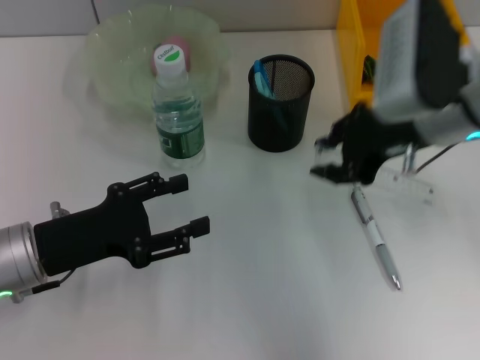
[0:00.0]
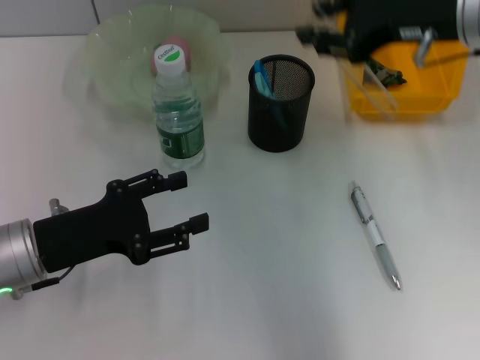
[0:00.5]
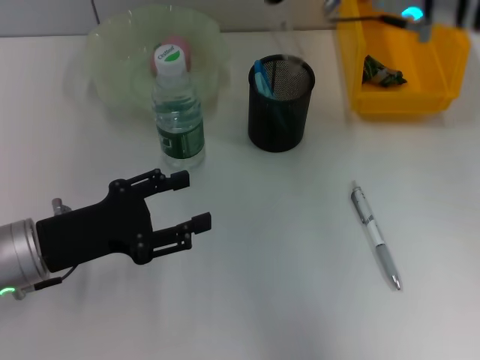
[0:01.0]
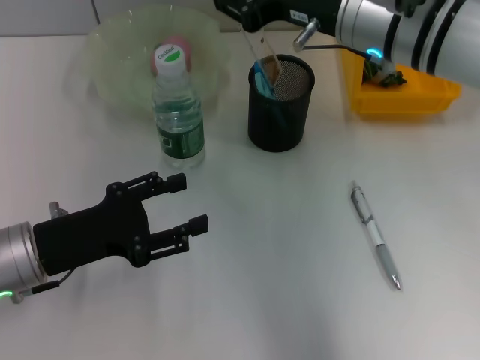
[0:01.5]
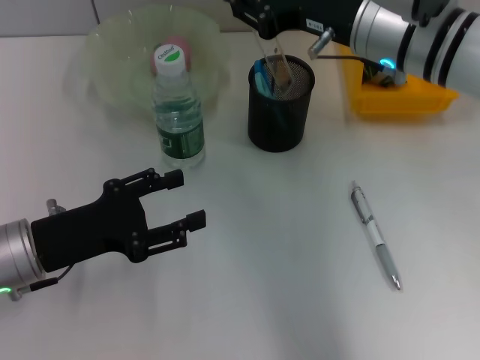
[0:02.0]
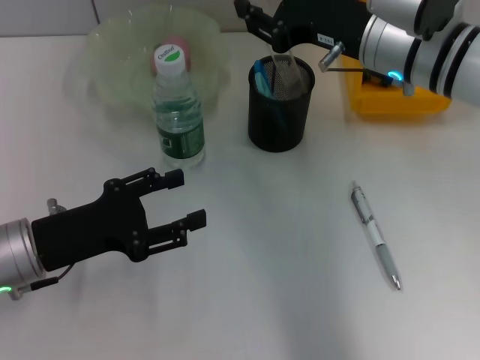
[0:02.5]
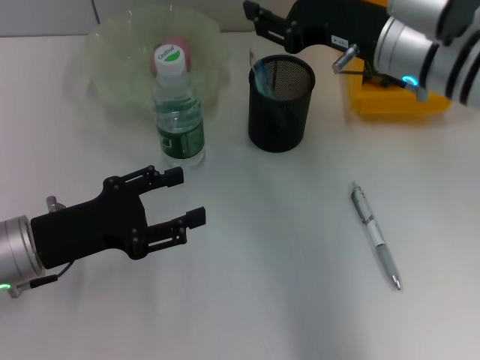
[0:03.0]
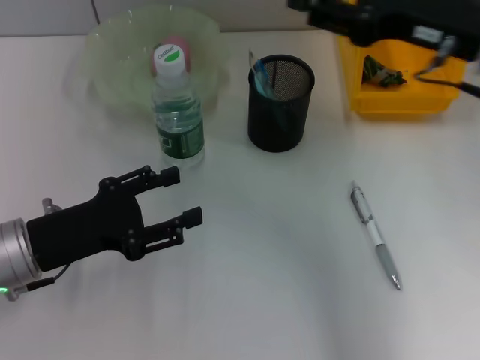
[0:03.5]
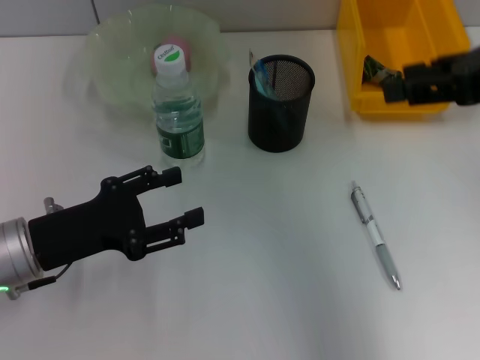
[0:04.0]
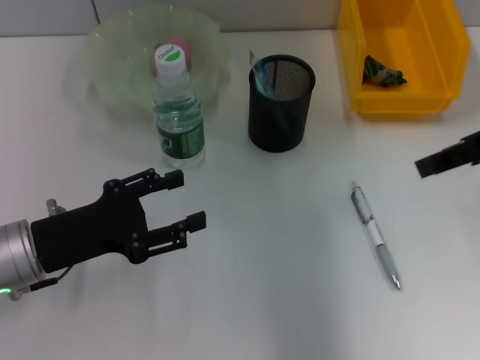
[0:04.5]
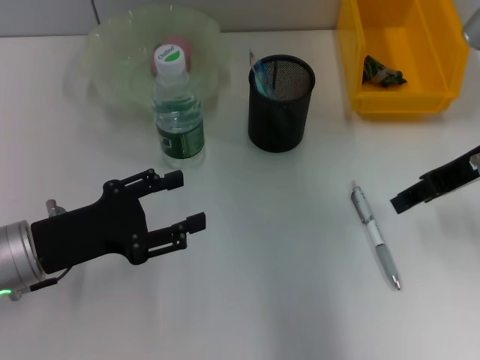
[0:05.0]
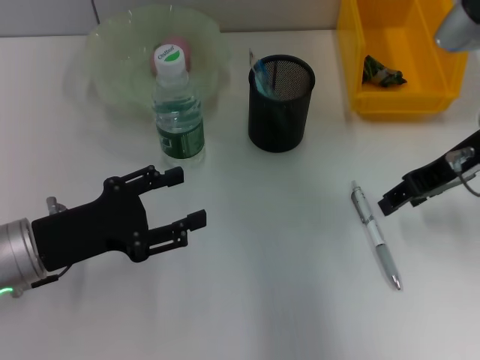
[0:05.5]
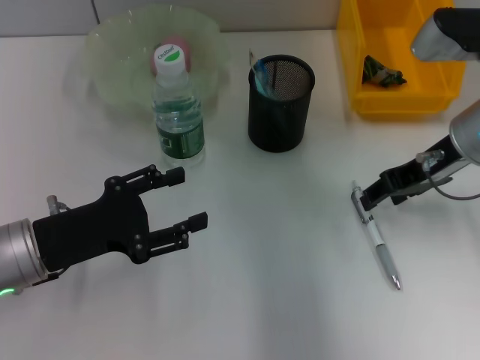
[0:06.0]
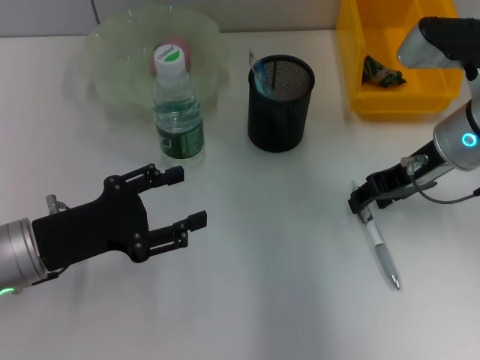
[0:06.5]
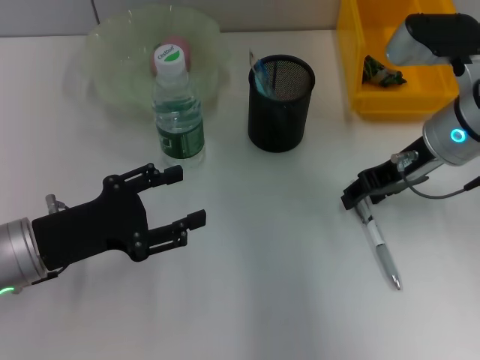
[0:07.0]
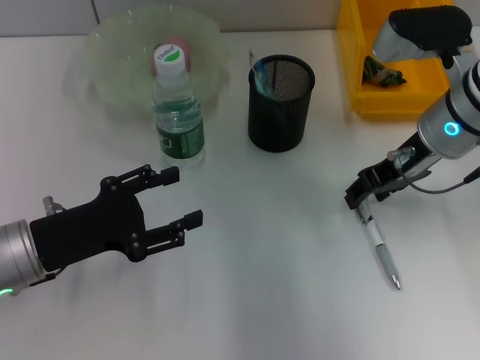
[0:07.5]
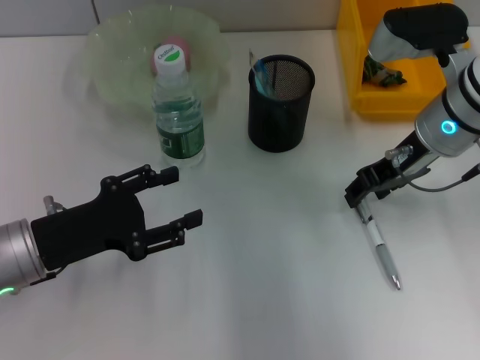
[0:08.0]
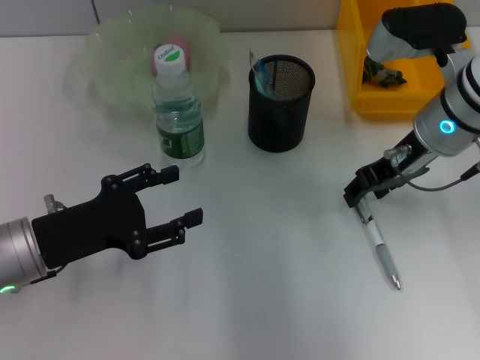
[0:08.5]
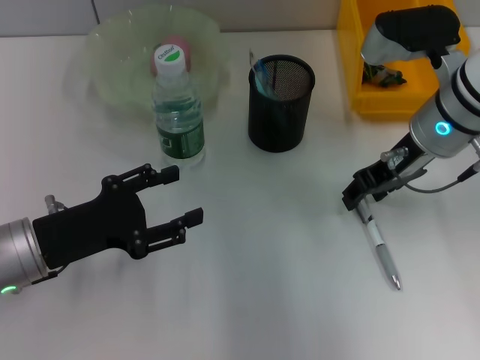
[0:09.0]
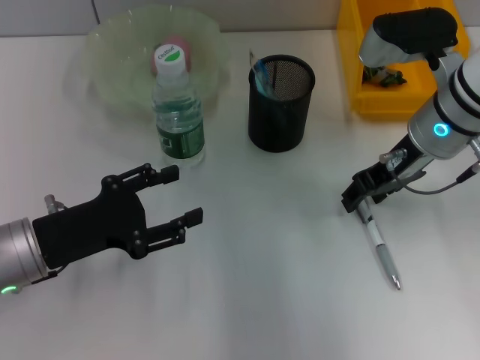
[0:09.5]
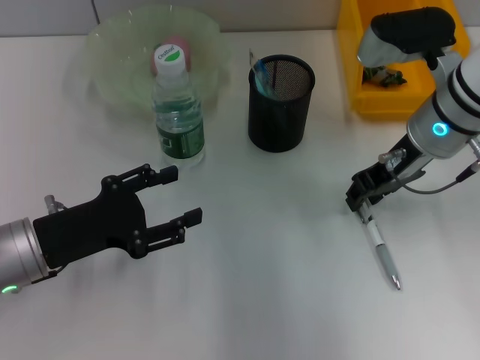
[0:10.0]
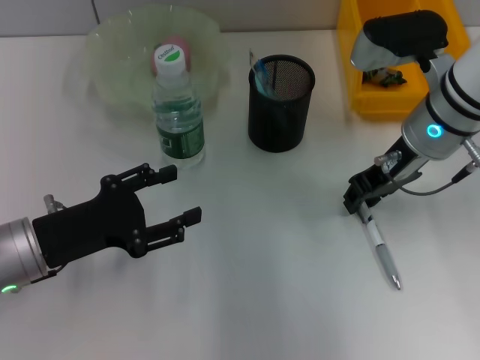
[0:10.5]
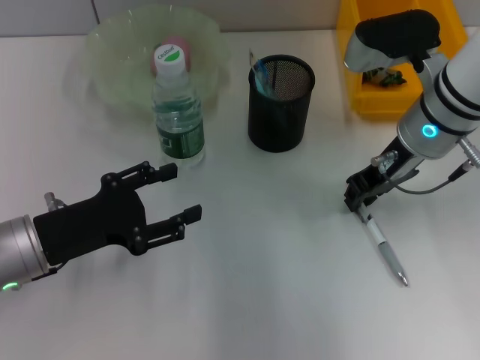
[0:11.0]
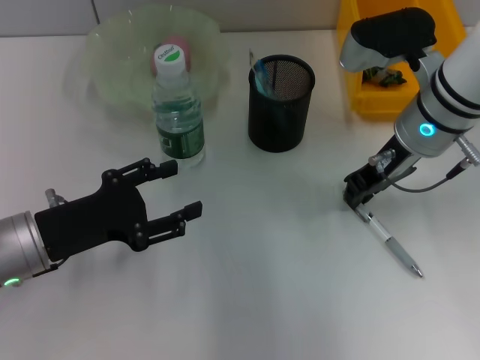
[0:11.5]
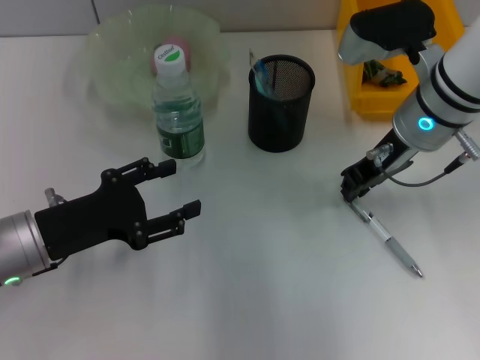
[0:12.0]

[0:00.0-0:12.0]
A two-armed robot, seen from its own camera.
Step, 0:00.0 to 0:02.5: Place the ruler into the pen holder with the right hand.
0:00.0 to 0:02.0: The right gripper moves about 5 cm.
0:02.0 to 0:04.0: The right gripper travels to the right, upward and backward by roughly 15 cm.
0:04.0 to 0:06.0: The right gripper travels downward, forward and to the left by approximately 15 cm.
0:06.0 to 0:08.0: The grippers move only a little.
0:08.0 to 0:10.0: Both grippers stay put.
0:10.0 to 0:12.0: The grippers make only small movements.

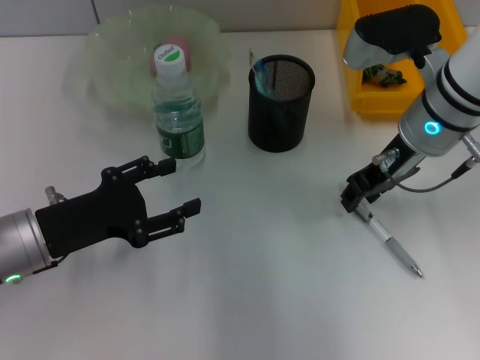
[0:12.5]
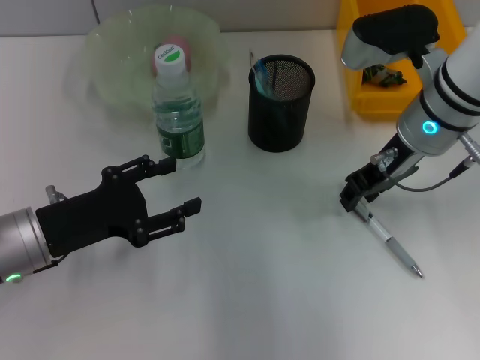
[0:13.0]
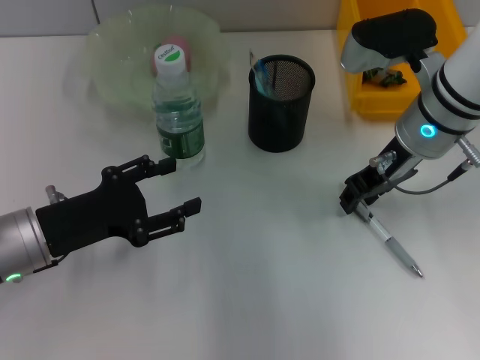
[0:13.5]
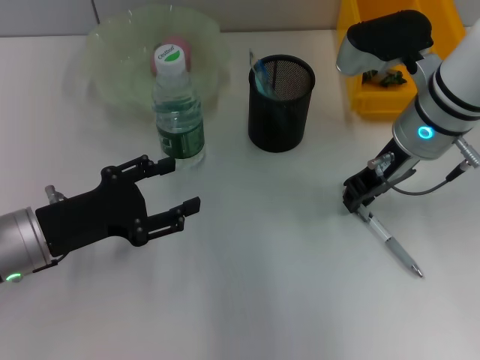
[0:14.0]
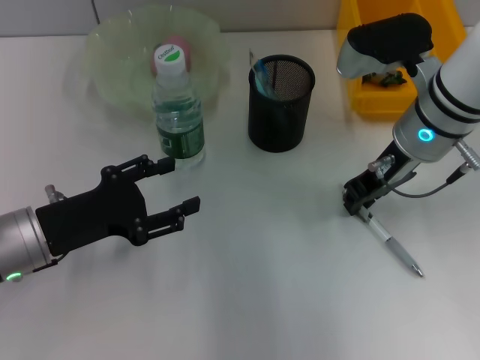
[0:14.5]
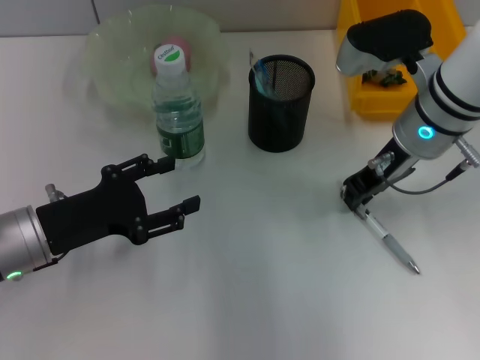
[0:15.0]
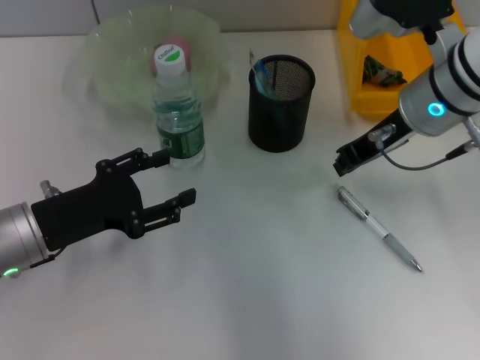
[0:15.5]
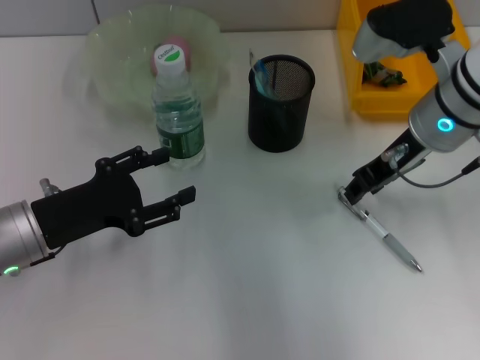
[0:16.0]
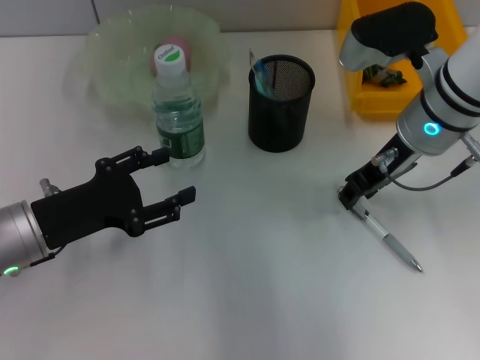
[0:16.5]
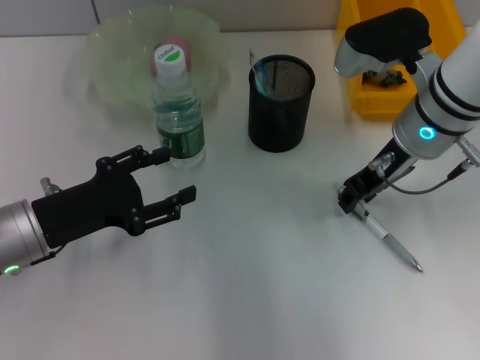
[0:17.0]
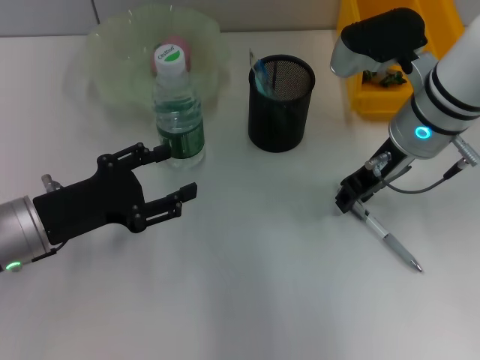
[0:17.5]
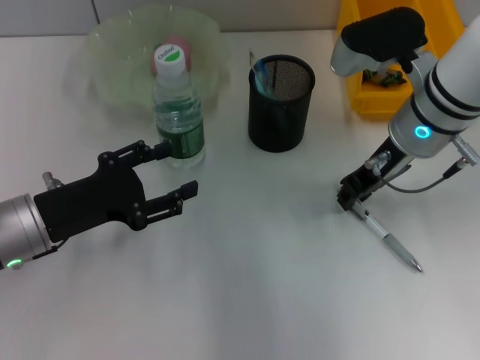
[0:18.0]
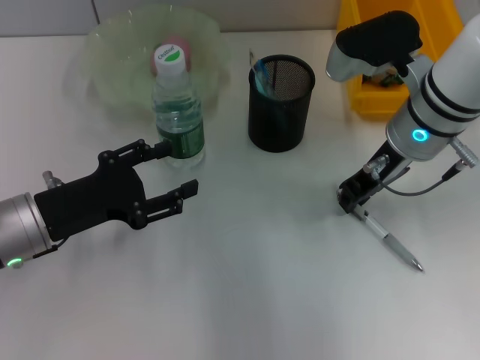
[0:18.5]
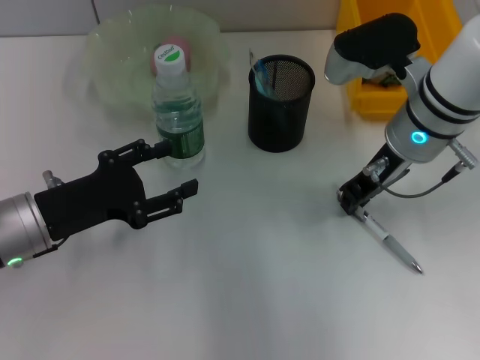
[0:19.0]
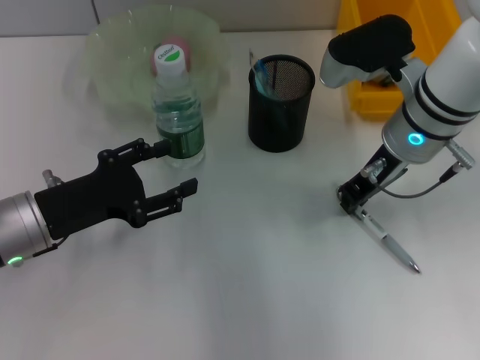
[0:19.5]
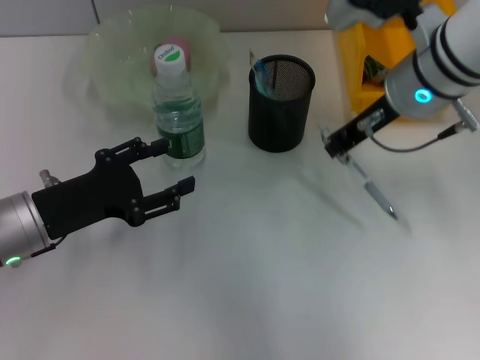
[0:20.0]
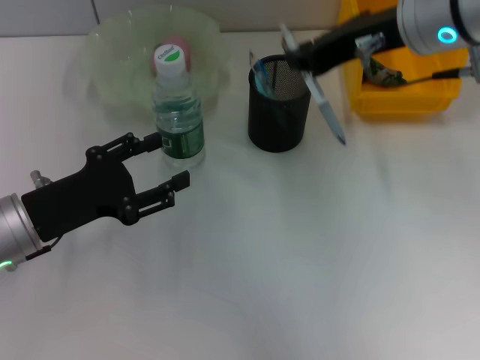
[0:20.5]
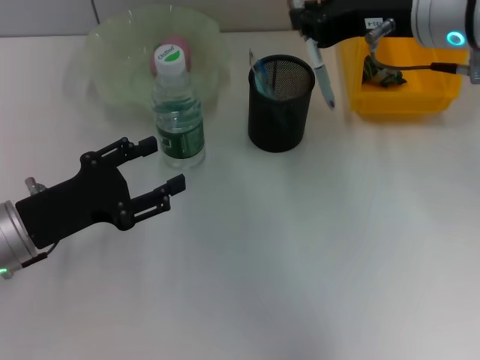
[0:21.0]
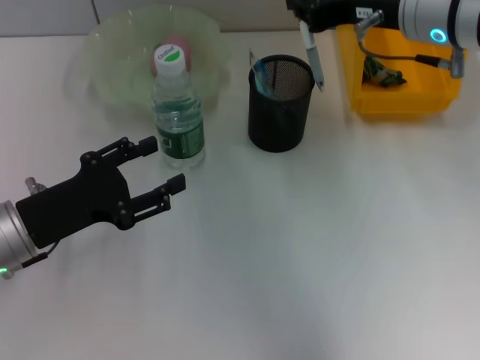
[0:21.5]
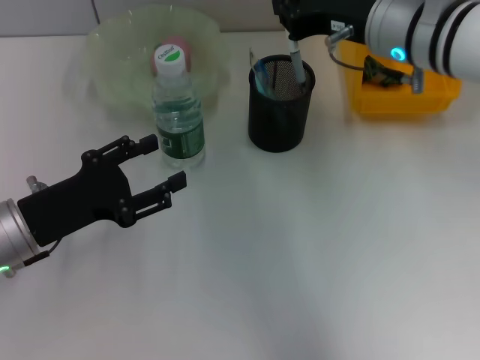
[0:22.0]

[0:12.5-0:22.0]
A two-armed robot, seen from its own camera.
Step, 0:12.5 to 0:19.0: Grab the gray spring-action pen with the right hand.
0:12.5 to 0:14.5: Both grippers stay put.
0:14.5 to 0:16.5: The grippers move only a little.
0:16.5 to 0:18.0: Neither gripper changes place.
0:18.0 to 0:20.0: The grippers make only small movements.

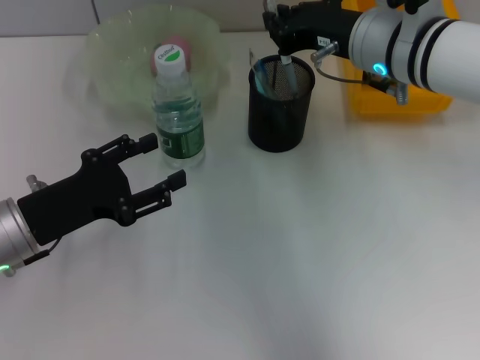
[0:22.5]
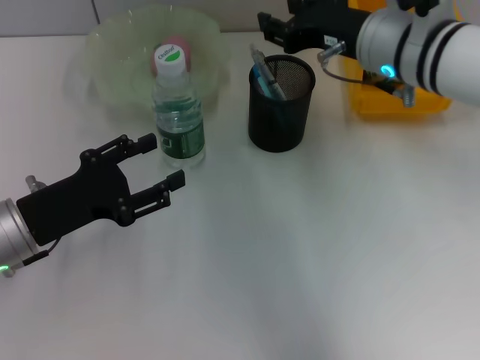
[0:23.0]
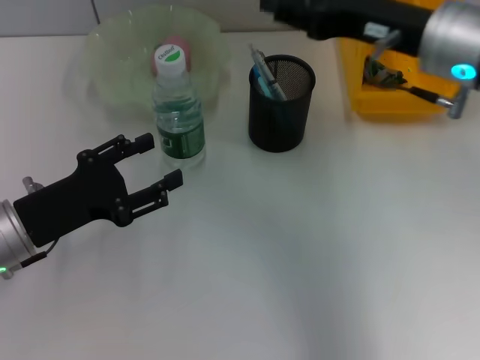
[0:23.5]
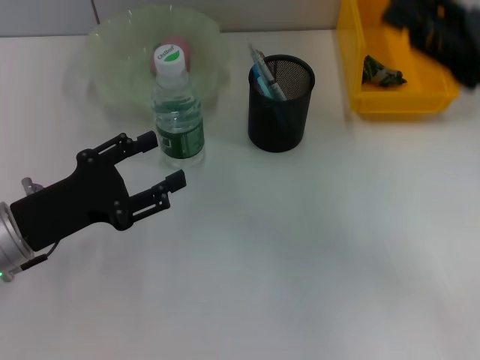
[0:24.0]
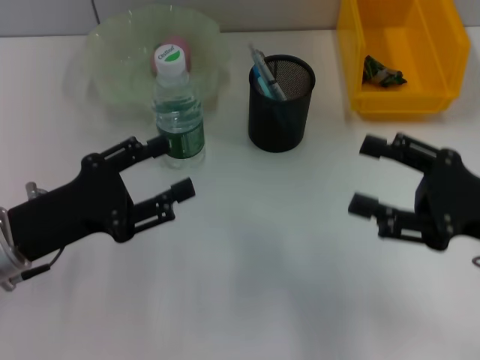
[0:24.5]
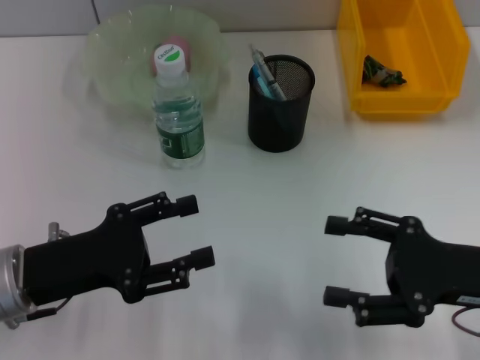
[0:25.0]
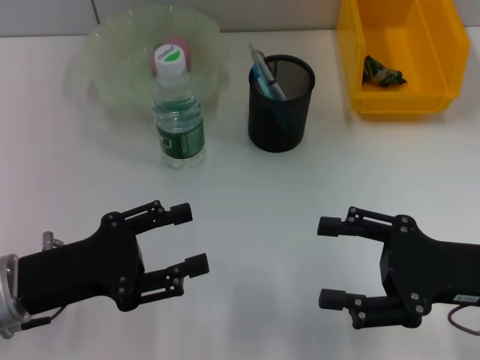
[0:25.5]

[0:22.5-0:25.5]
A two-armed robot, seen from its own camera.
0:22.5 to 0:24.0: The right gripper moves to the right and backward, some 15 cm, and opens.
0:24.0 to 0:25.5: The right gripper is displaced downward and backward by approximately 10 cm, and opens its fingers.
